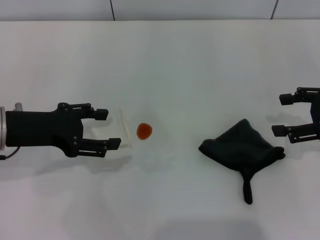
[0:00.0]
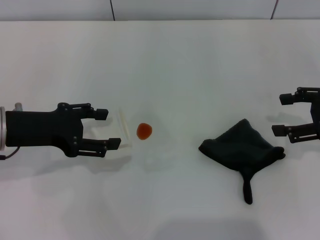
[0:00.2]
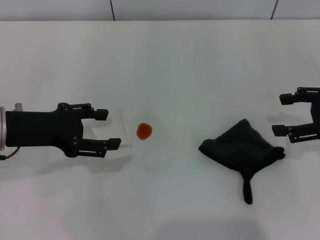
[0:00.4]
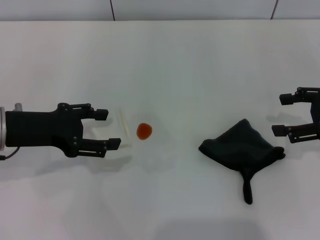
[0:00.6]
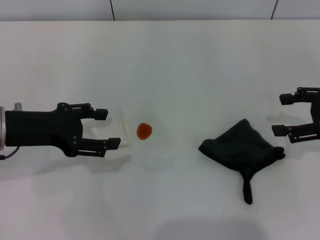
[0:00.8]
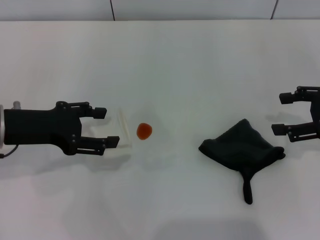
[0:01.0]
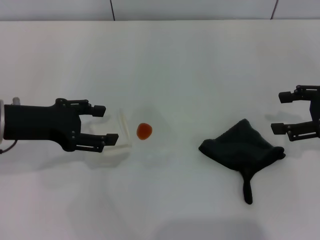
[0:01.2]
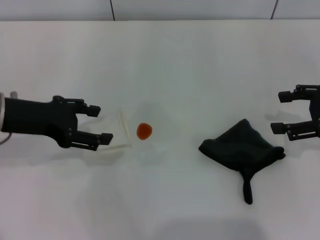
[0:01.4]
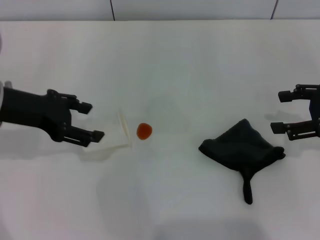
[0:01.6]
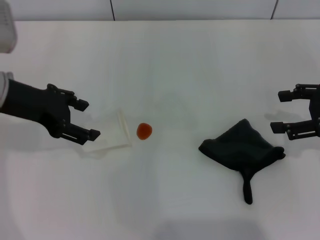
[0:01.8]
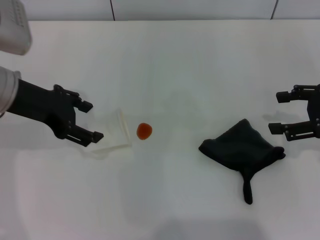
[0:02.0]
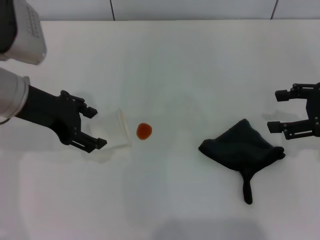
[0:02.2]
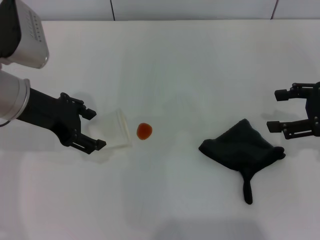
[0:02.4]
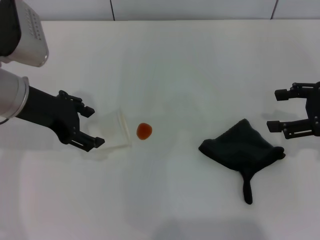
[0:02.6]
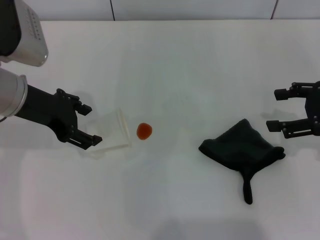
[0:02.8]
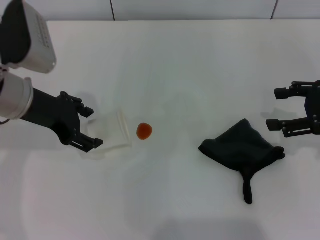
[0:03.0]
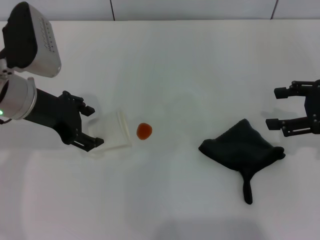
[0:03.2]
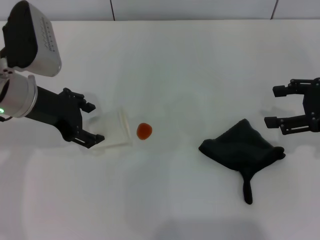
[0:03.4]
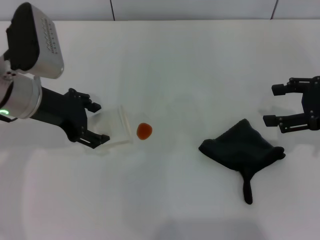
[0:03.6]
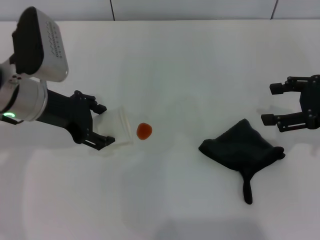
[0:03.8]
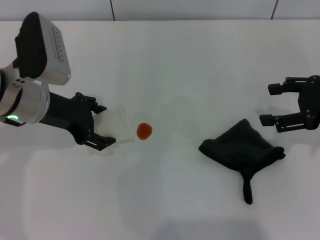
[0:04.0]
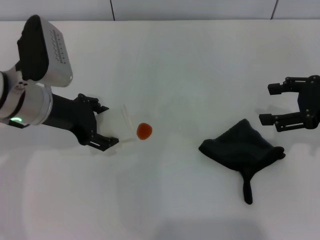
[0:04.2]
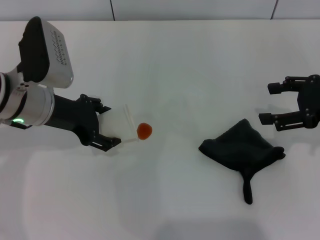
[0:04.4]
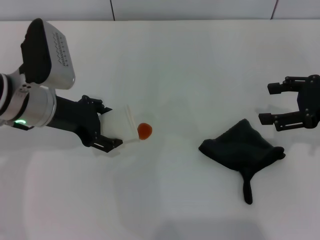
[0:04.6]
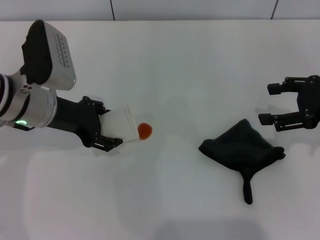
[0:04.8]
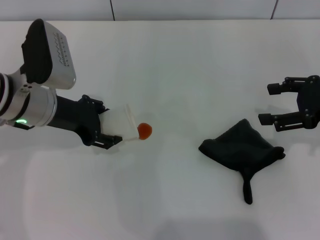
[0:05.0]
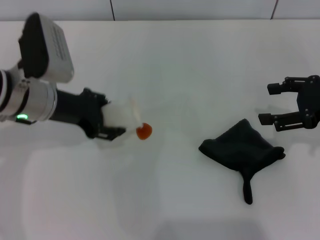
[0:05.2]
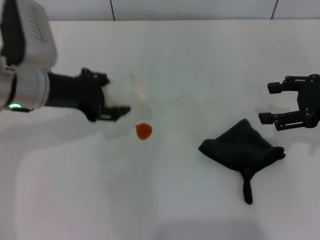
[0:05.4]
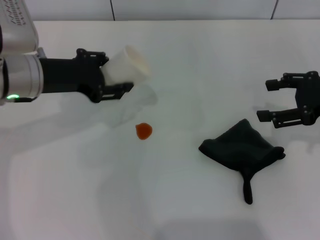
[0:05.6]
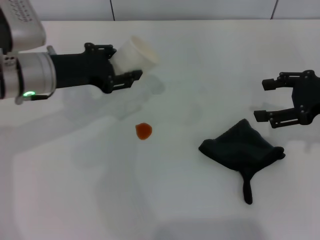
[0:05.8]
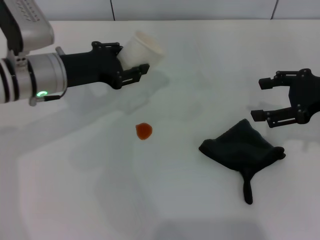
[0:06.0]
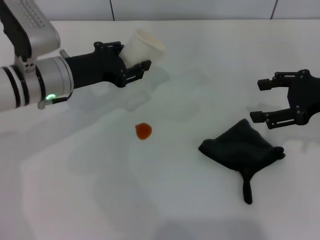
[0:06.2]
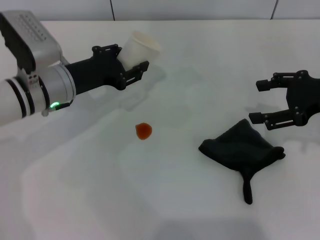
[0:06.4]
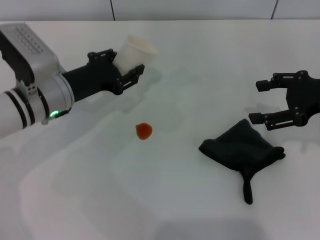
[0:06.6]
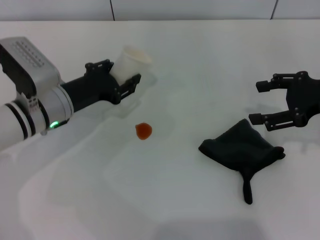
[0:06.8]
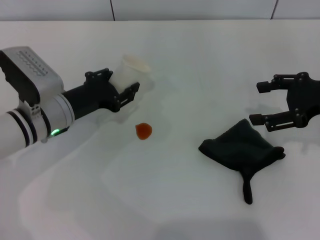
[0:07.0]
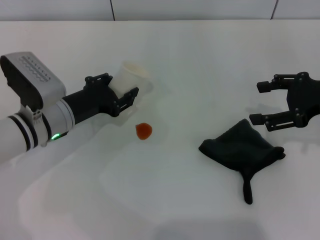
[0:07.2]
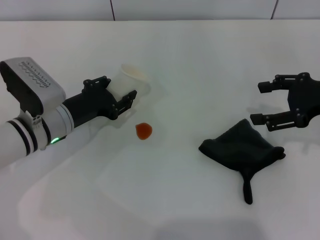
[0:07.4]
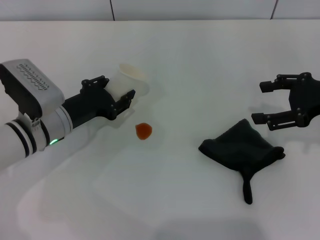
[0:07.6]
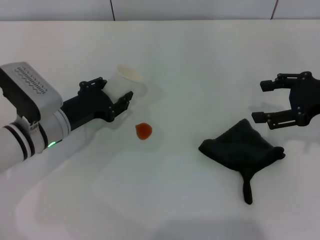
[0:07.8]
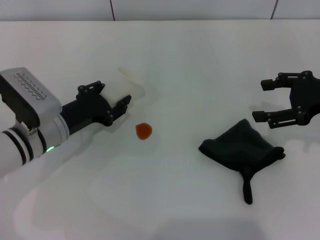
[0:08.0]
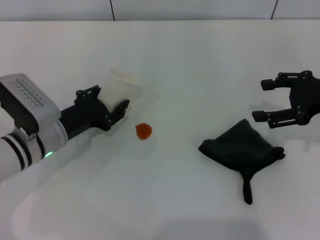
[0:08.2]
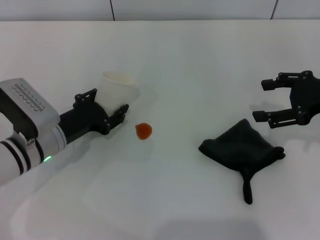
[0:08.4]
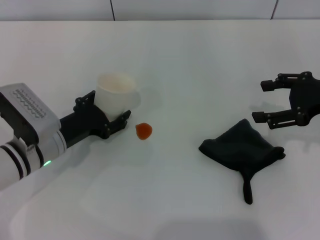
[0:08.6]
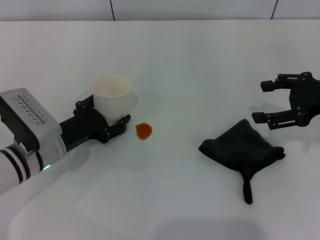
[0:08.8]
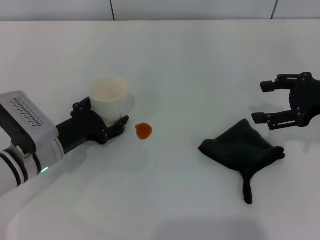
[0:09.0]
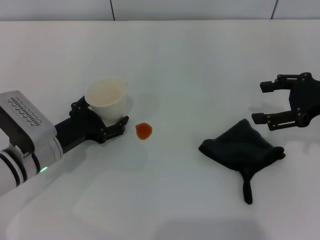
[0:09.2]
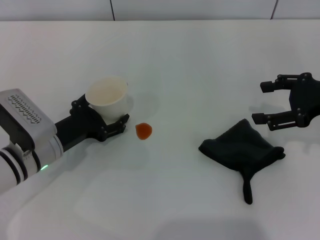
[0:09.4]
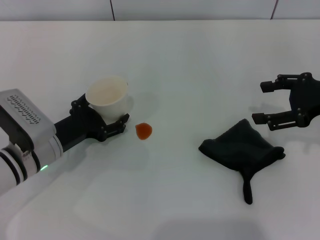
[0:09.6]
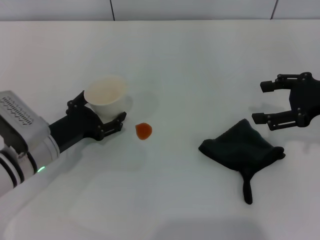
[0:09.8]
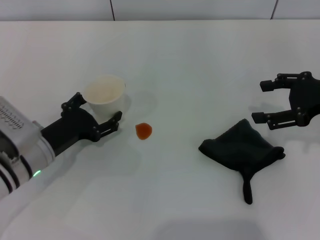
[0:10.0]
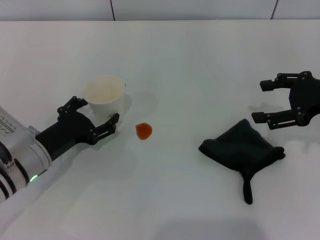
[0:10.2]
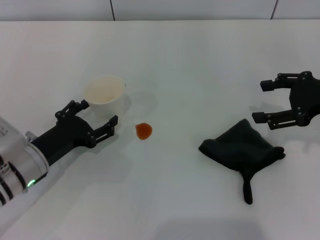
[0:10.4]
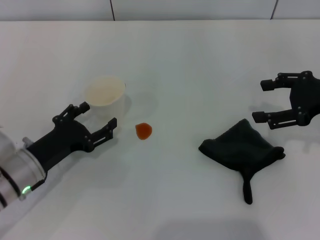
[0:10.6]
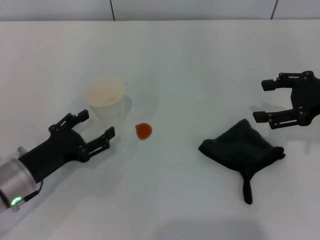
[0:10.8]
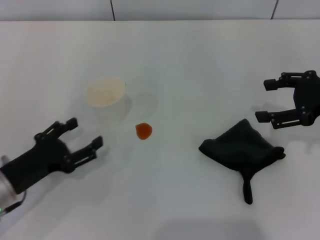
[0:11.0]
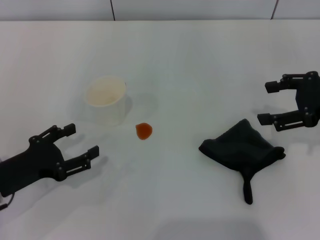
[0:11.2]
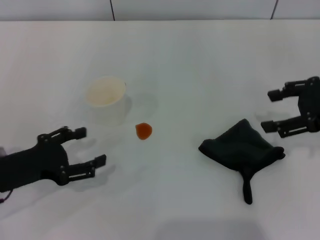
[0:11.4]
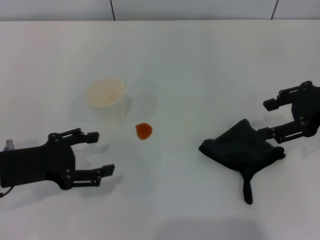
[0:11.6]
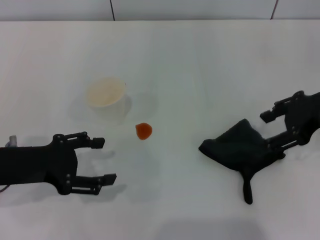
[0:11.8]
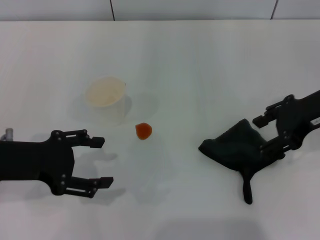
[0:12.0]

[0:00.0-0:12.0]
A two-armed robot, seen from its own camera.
Step, 0:00.0 to 0:05.0: Grasp the paper cup with the left gripper.
Step, 0:05.2 to 0:10.2: Stand the paper cup upright with the left gripper.
0:00.0 to 0:01.6: The grippers move only a little.
0:01.6 to 0:03.0: The grippers move only a little.
0:03.0 to 0:04.4: The grippers make only small movements.
0:04.4 to 0:06.0: The left gripper closes.
0:06.0 to 0:07.6: The left gripper goes about 10 cm downward.
0:07.6 to 0:09.0: The left gripper opens its fingers.
0:09.0 to 0:10.4: The left gripper opens.
0:10.4 to 0:12.0: The right gripper goes about 5 cm to the left. Meanwhile the left gripper goes some 10 cm upward.

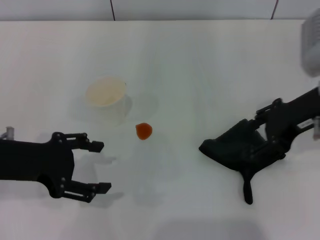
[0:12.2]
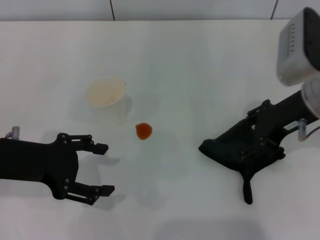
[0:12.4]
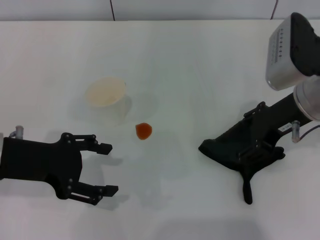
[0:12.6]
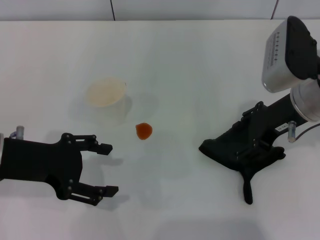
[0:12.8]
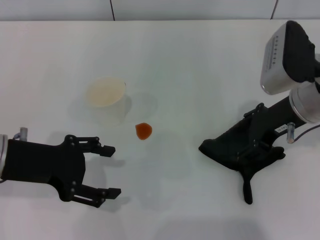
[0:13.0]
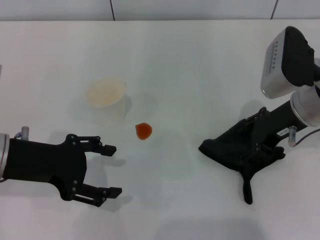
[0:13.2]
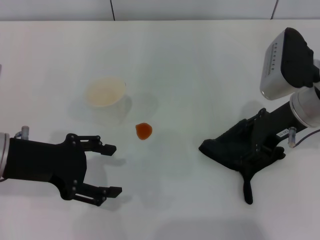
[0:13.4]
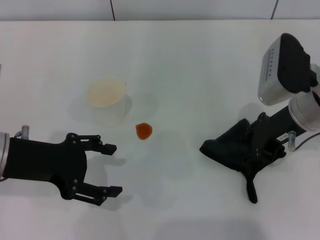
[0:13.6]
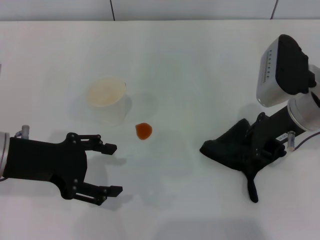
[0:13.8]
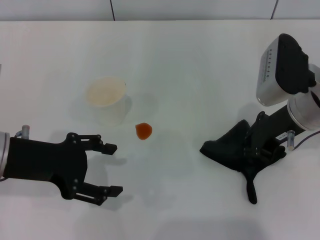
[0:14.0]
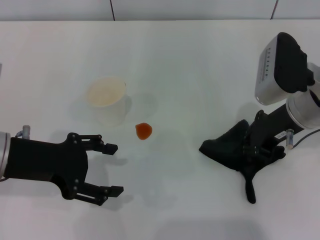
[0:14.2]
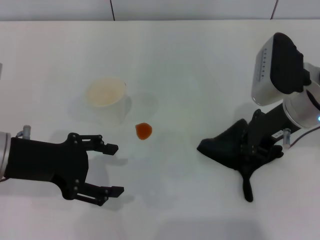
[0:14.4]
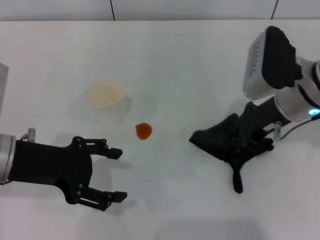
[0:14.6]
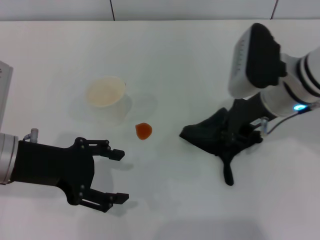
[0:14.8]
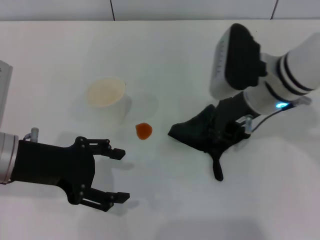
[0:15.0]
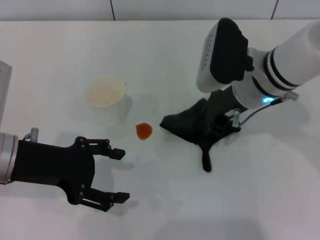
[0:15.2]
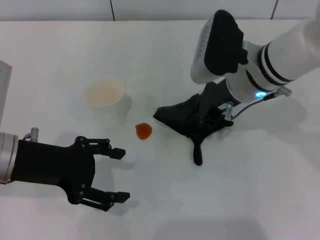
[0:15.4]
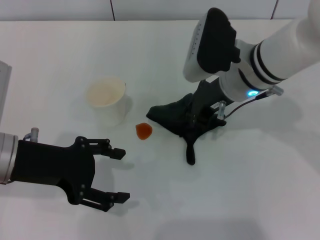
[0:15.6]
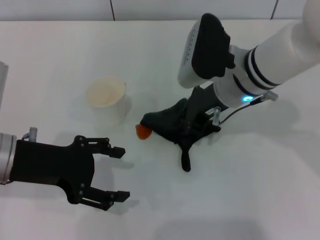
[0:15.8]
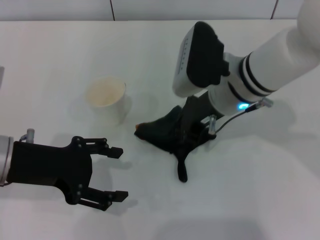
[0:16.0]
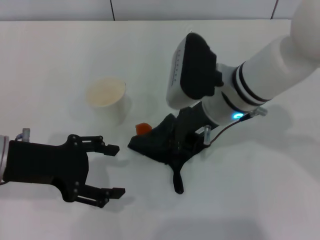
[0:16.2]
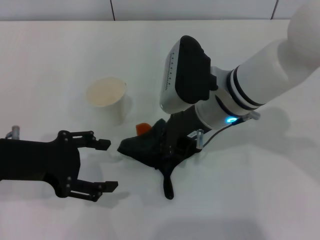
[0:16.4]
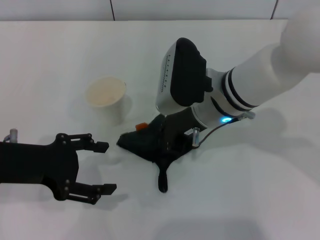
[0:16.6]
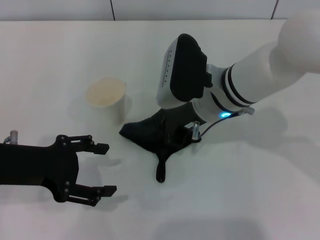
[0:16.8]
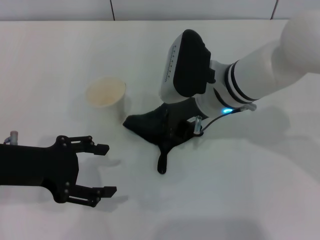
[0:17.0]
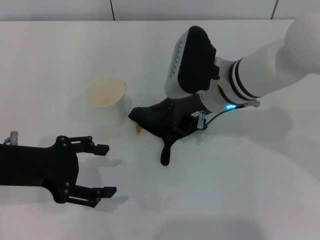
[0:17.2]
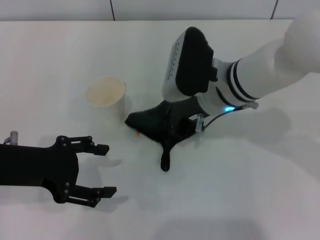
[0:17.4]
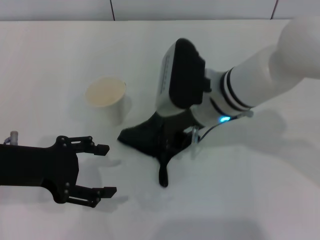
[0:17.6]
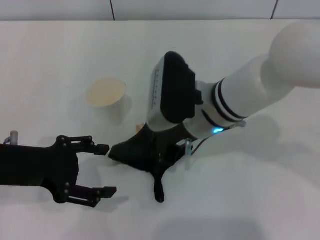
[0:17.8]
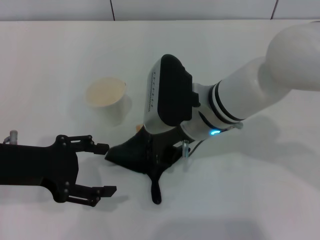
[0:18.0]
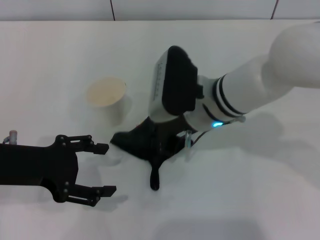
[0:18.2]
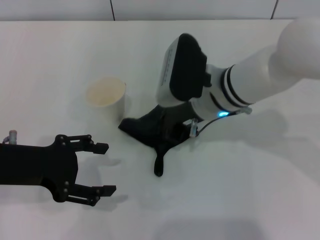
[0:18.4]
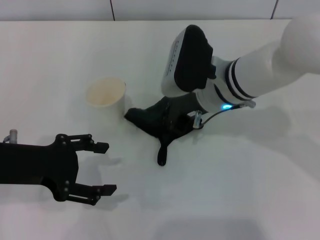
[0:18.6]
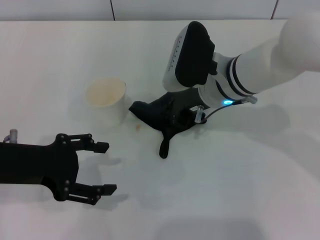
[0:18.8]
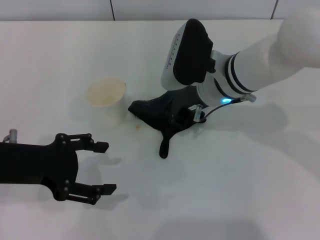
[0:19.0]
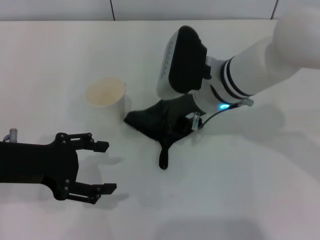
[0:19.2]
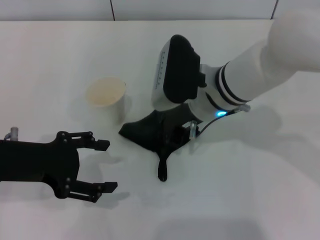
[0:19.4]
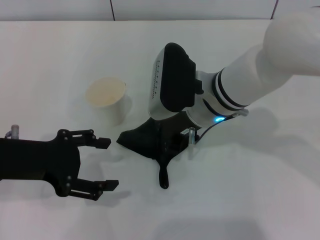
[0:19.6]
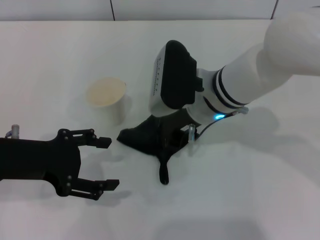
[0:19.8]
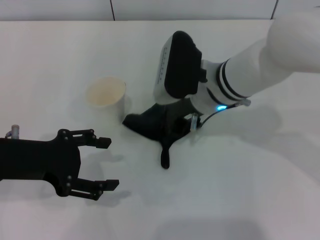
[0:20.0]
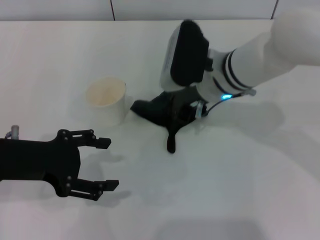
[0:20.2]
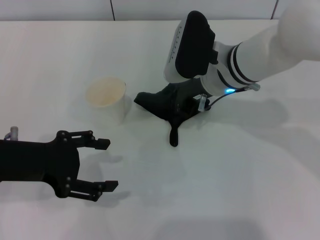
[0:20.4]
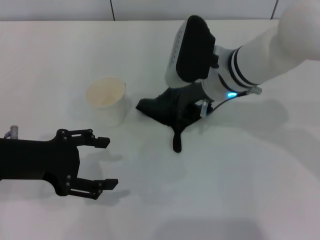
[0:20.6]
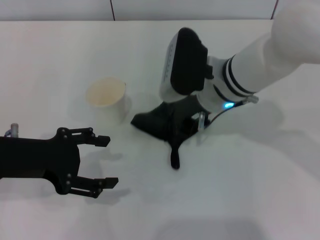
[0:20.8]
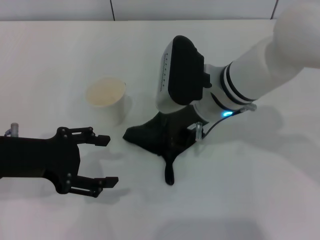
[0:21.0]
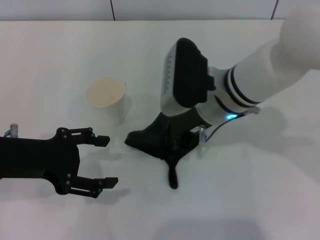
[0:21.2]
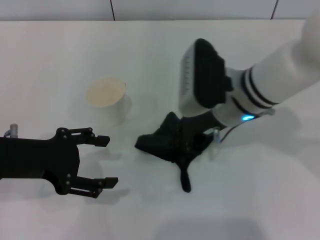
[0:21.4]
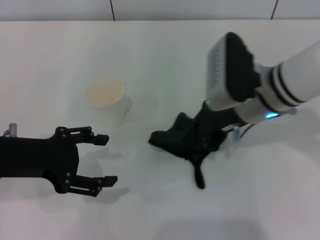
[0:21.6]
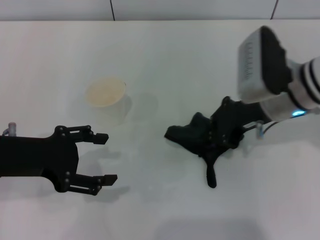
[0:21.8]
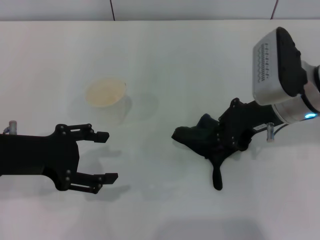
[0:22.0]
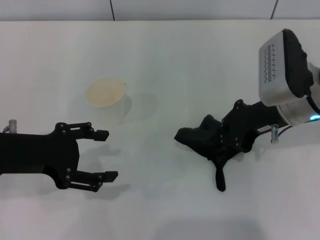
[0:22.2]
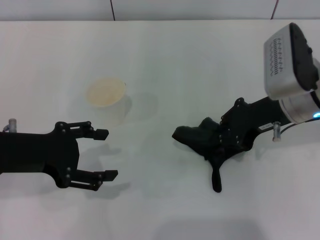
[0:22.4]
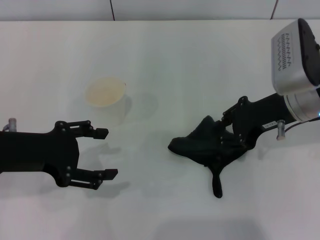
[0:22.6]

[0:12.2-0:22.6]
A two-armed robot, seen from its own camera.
Step, 0:12.2 to 0:14.2: Grasp the rag with the right gripper.
Step, 0:14.4 to 0:22.2: Wipe the stains off the table with the right gripper.
0:12.2 to 0:13.6: The right gripper ends up some 5 cm from where it was.
0:13.6 to 0:15.2: The right gripper heads to the left, covering approximately 5 cm, and closes.
0:15.2 to 0:16.6: The right gripper shifts some 5 cm to the left.
0:16.6 to 0:21.2: The grippers make only small movements.
0:21.2 to 0:22.6: The right gripper is displaced to the right by about 10 cm.
